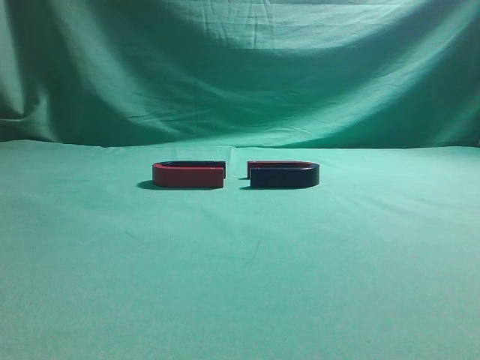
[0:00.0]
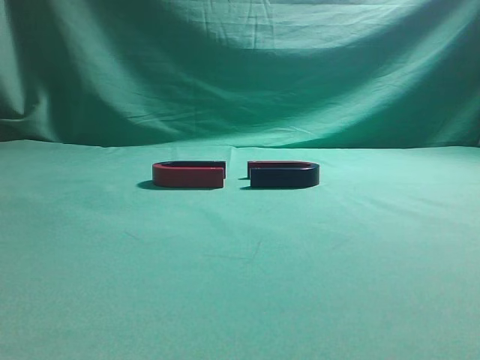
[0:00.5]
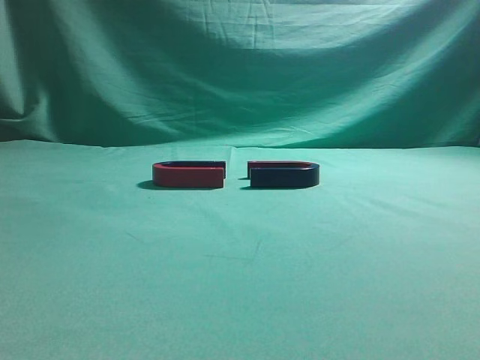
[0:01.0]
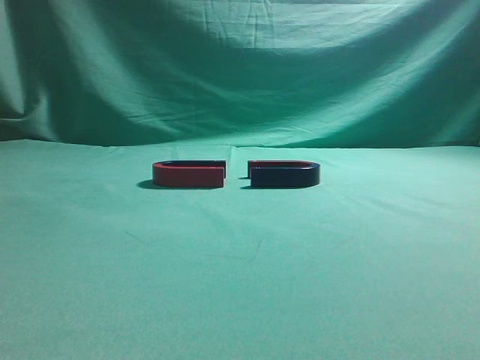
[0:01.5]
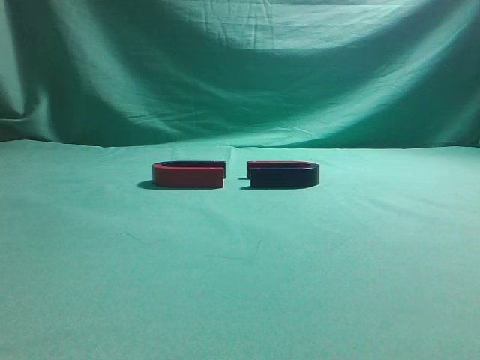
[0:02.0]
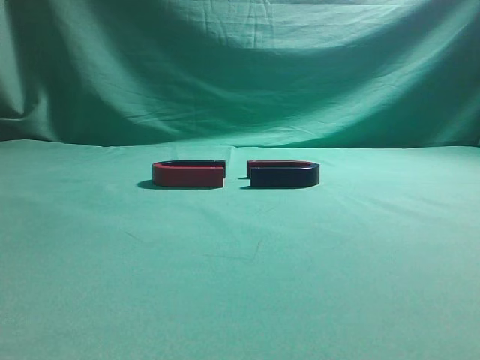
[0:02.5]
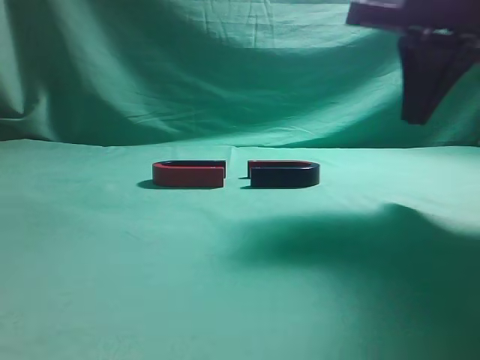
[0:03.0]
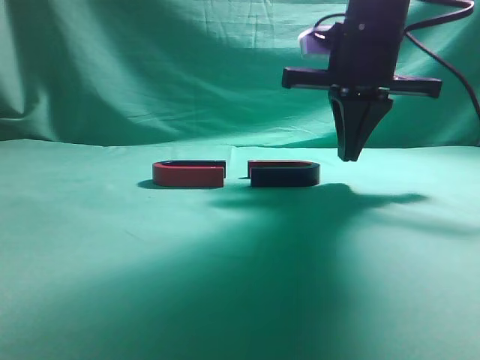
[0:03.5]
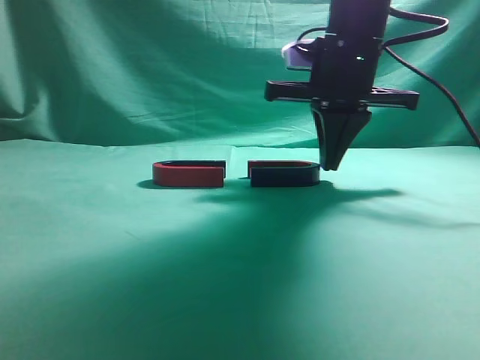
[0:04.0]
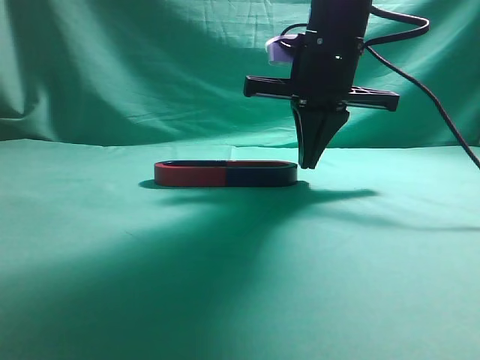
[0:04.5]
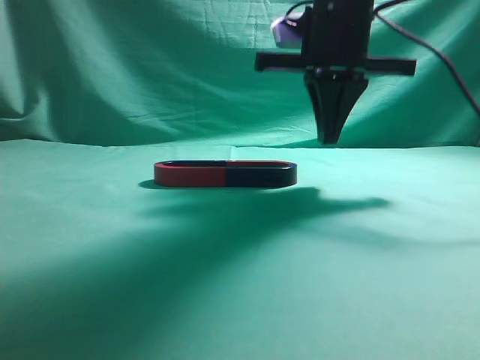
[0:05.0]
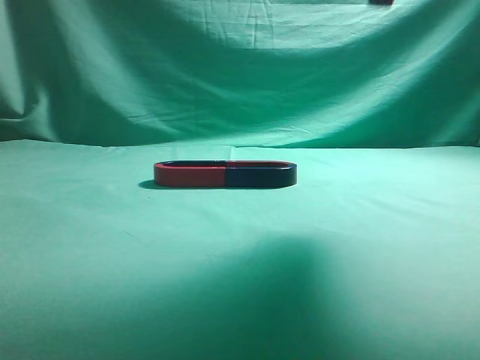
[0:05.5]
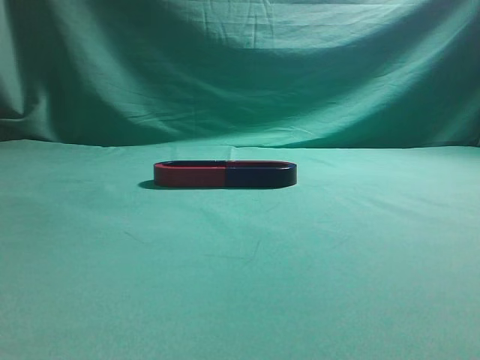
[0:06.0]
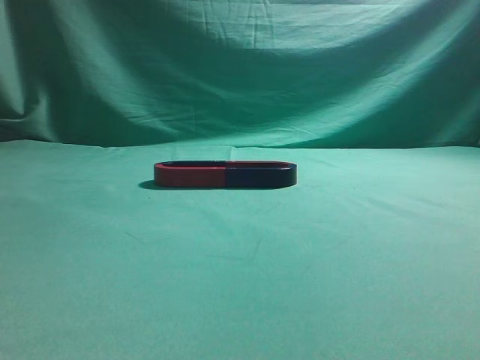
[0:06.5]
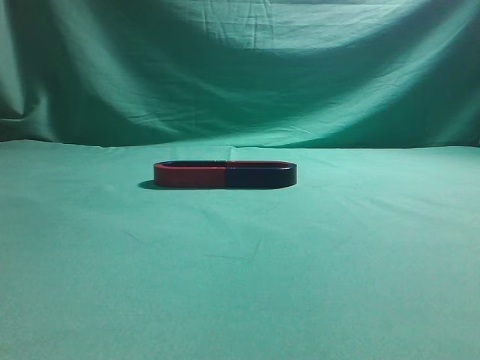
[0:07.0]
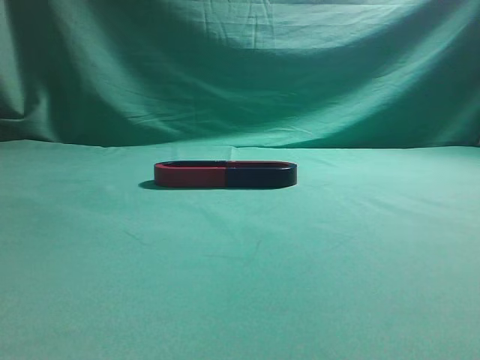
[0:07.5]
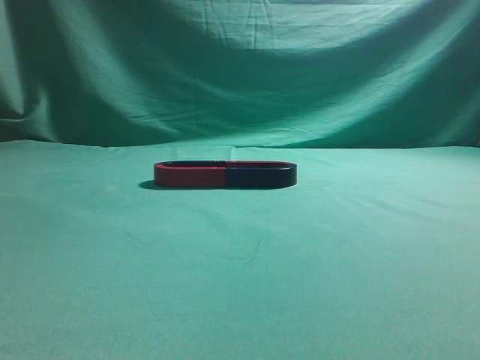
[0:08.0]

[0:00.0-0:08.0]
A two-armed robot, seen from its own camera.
Task of the whole recording: push the magnet on the table from its original position to another position.
Step, 0:00.0 to 0:04.5: Push the magnet on the right to connect the magnet on the left.
0:02.0 to 0:04.0: The right gripper goes roughly 35 cm forward and to the left.
0:04.0 to 0:06.0: The right gripper is displaced backward, upward and to the right by approximately 30 cm.
